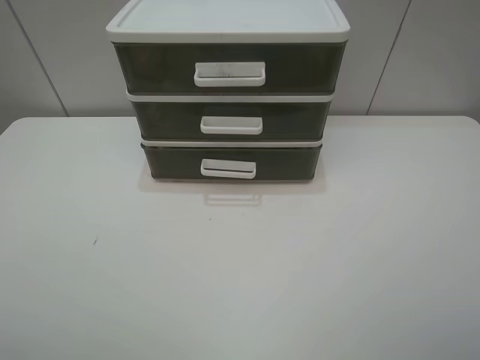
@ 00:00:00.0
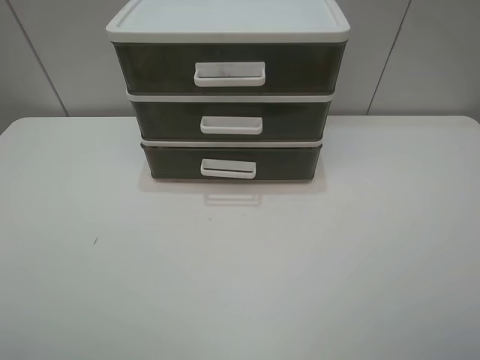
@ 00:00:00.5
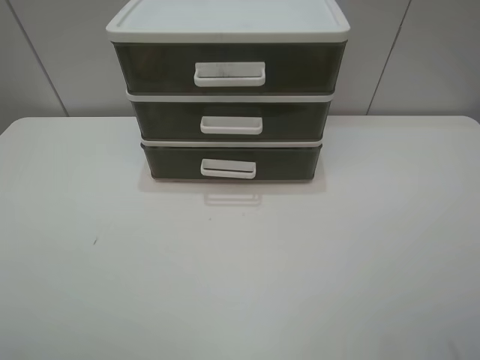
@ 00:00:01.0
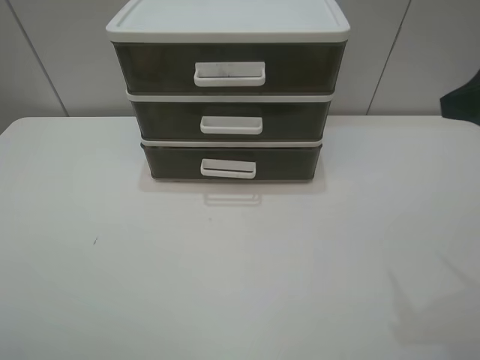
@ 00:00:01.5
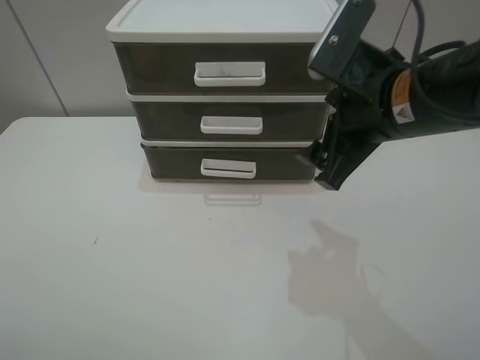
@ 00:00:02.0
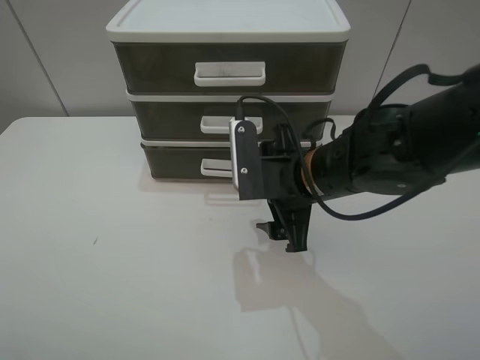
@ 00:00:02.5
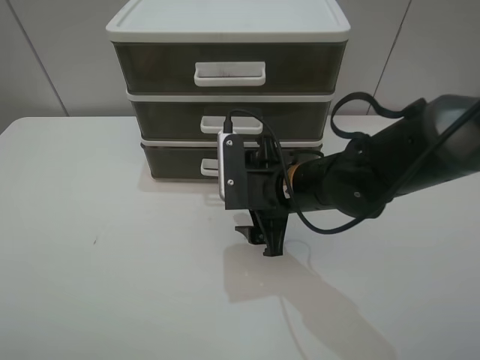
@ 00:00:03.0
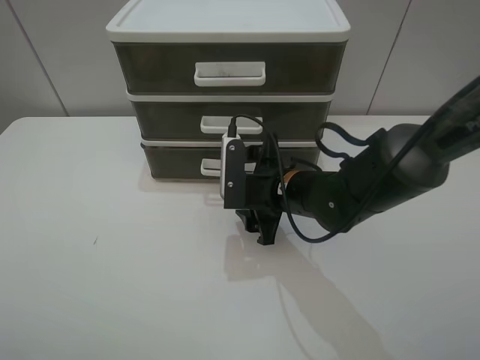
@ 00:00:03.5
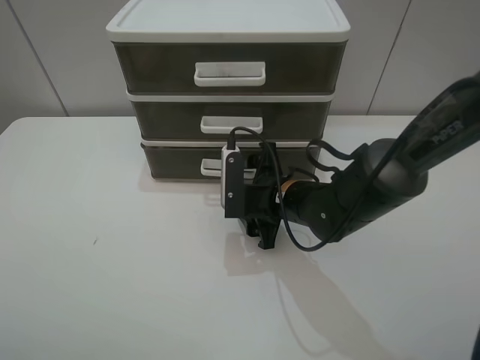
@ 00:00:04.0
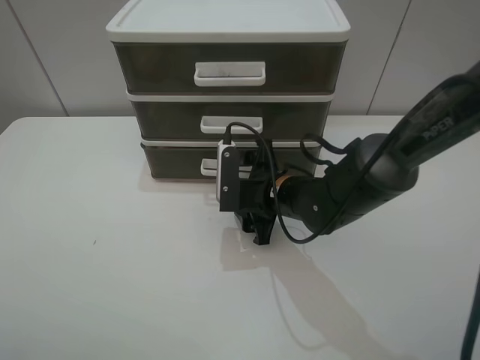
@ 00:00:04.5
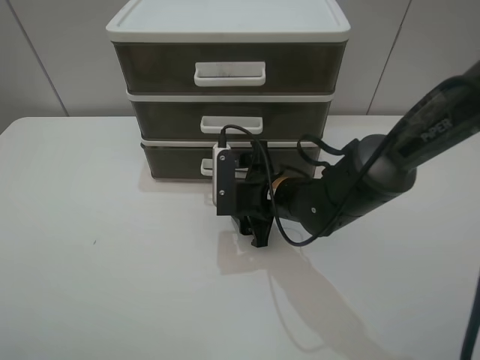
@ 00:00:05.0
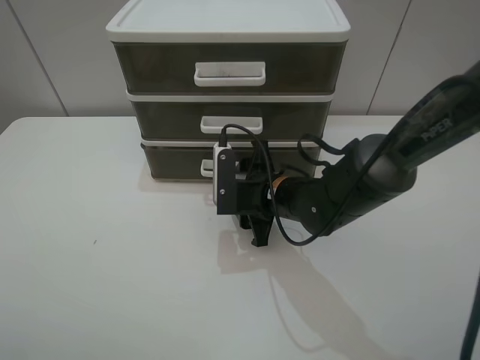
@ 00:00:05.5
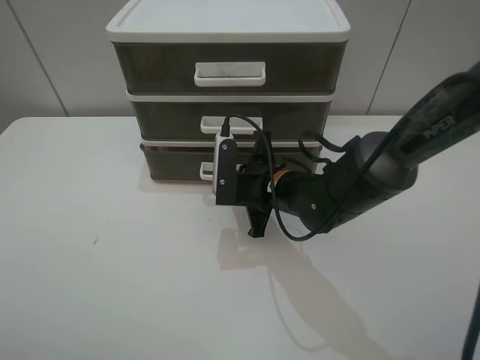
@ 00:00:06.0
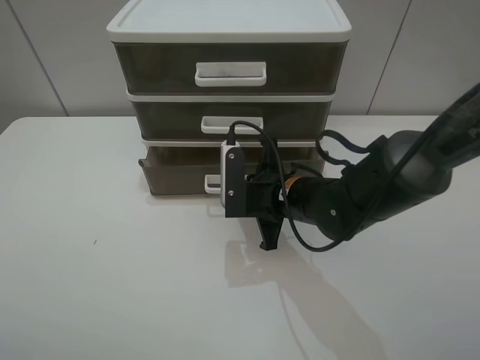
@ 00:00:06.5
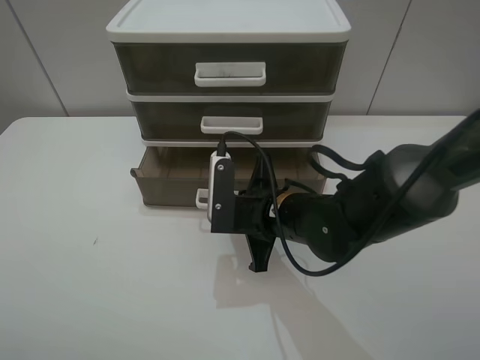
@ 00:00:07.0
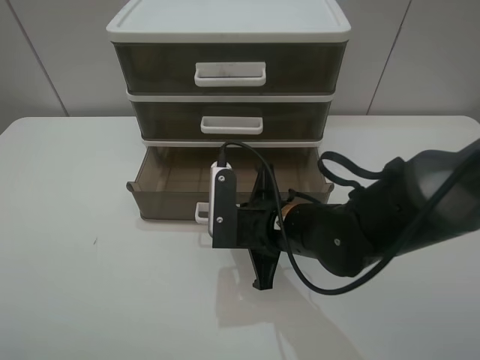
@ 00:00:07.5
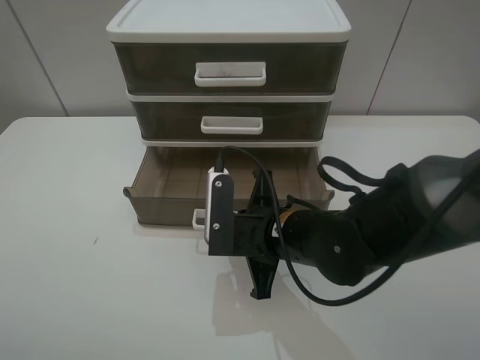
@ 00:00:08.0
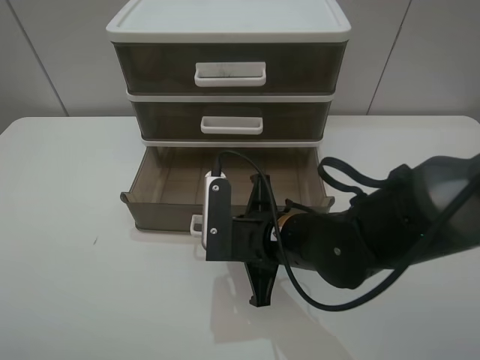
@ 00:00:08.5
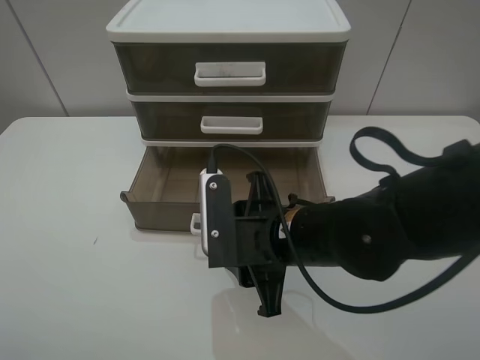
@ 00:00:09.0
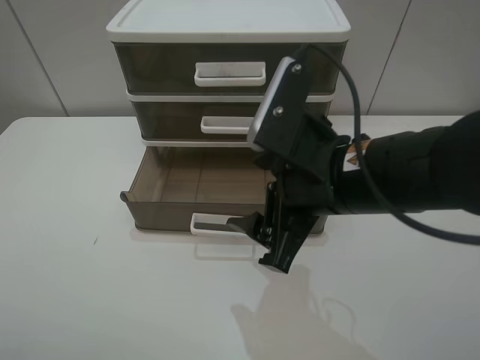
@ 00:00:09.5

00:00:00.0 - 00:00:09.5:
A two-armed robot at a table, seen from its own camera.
Task of the whole recording: open the bottom drawer.
Step, 00:00:00.0 - 00:00:06.0: Grab the bottom drawer with the right gripper.
Step, 00:00:06.5 - 00:00:09.0: Pull open the drawer with the right gripper.
00:00:00.0 - 00:00:02.0: The right gripper moves forward and to the left, some 30 cm.
00:00:02.0 - 00:00:04.0: The right gripper is displaced downward and to the left by about 20 cm.
00:00:04.0 - 00:00:05.5: The two grippers keep their place.
00:00:05.5 - 00:00:07.5: The right gripper shifts some 5 cm backward, and closes up.
00:00:07.5 - 00:00:09.5: The right gripper travels upward by roughly 10 cm, and opens up.

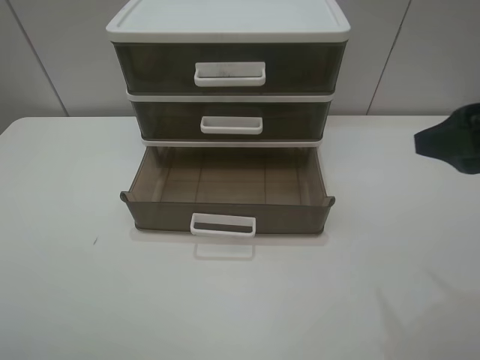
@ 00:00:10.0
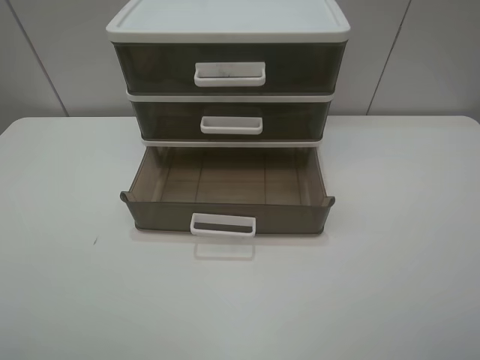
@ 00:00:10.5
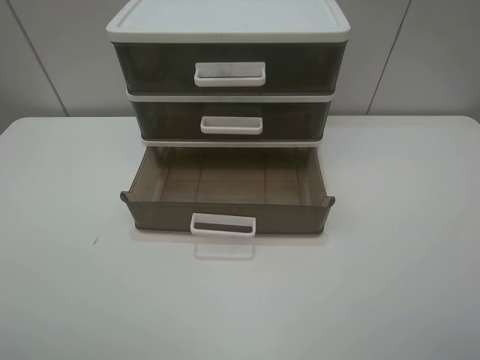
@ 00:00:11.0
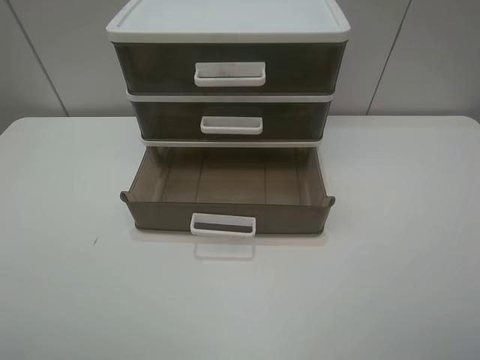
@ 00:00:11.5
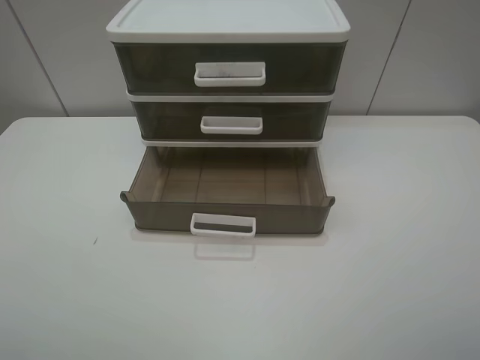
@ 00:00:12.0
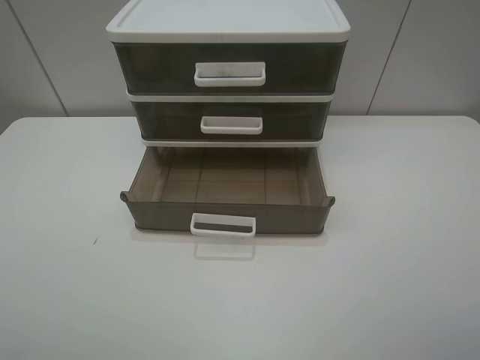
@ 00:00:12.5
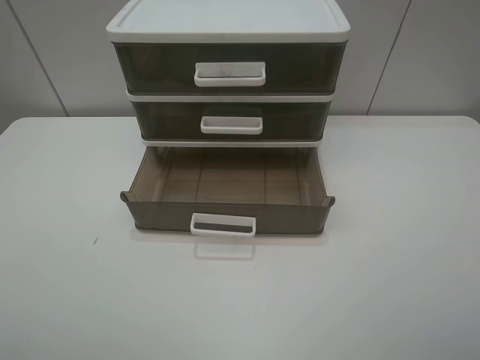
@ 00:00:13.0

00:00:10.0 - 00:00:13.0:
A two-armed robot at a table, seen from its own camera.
Task of the whole recording: open the bottom drawer.
00:00:10.0 - 00:00:11.5: The right gripper goes some 15 cm backward.
